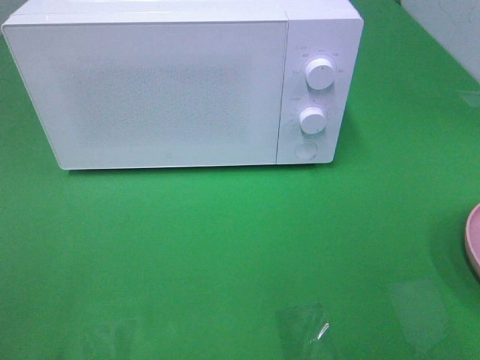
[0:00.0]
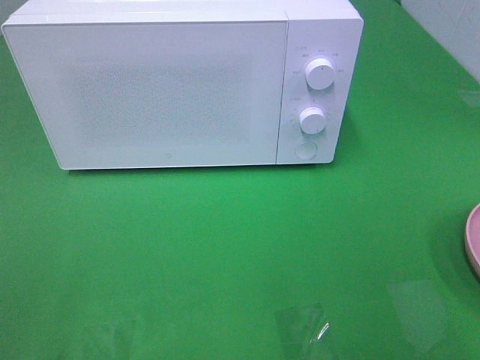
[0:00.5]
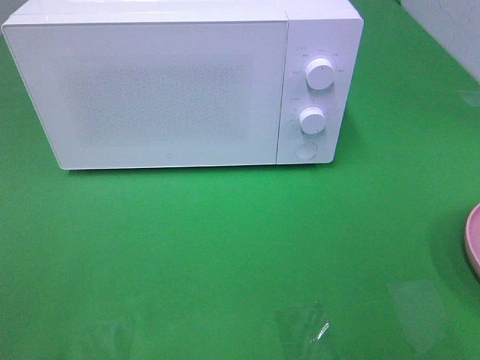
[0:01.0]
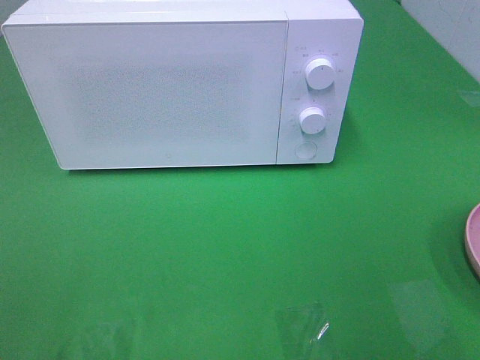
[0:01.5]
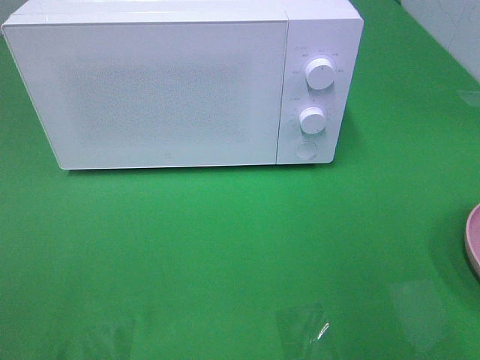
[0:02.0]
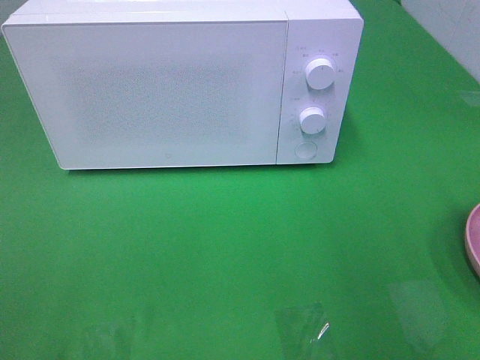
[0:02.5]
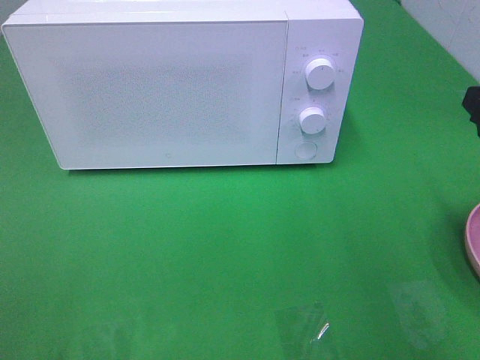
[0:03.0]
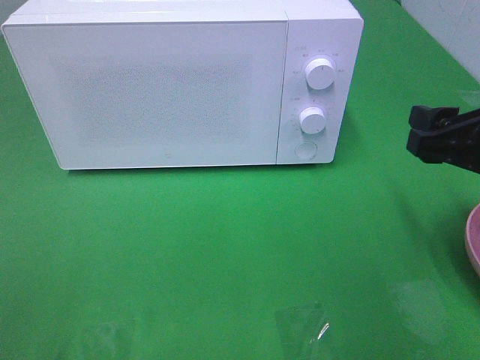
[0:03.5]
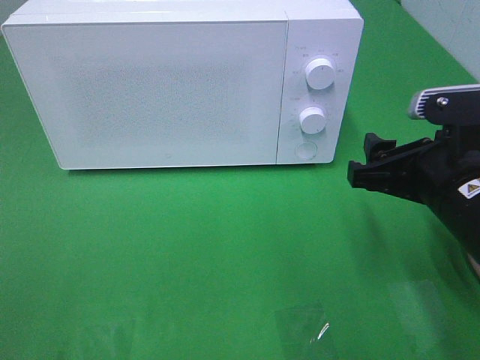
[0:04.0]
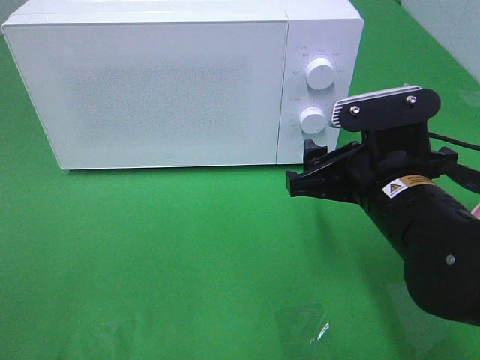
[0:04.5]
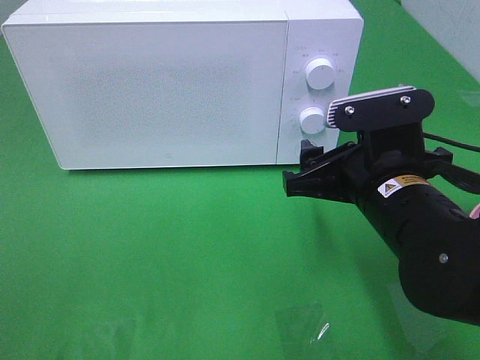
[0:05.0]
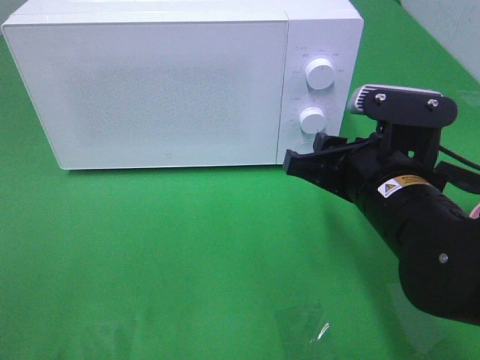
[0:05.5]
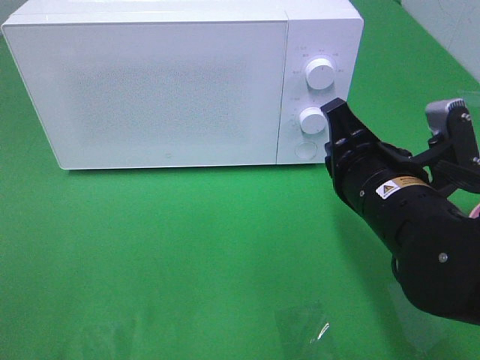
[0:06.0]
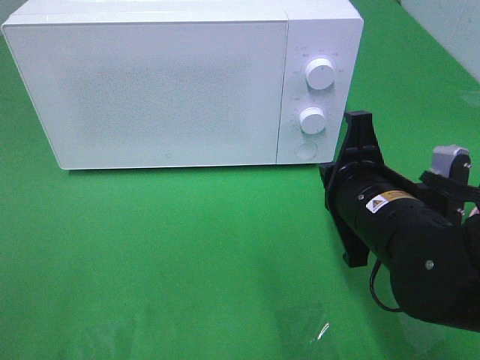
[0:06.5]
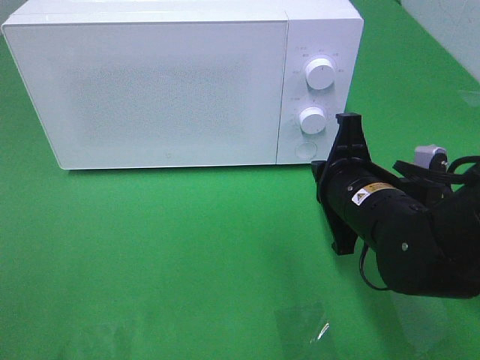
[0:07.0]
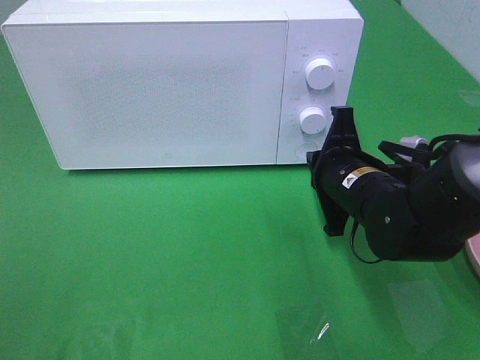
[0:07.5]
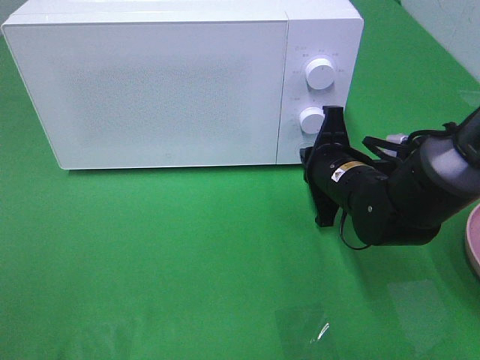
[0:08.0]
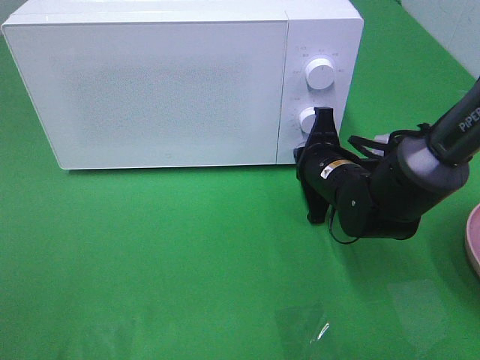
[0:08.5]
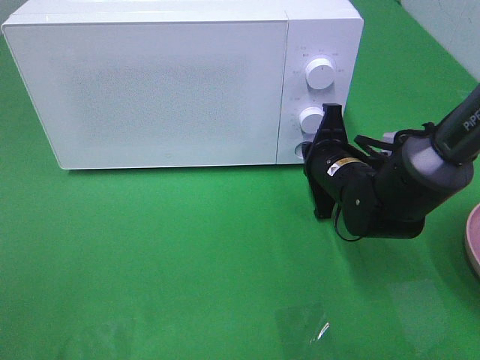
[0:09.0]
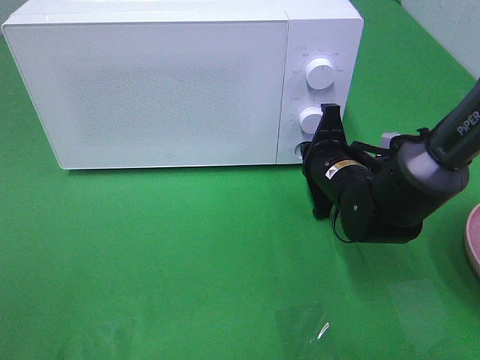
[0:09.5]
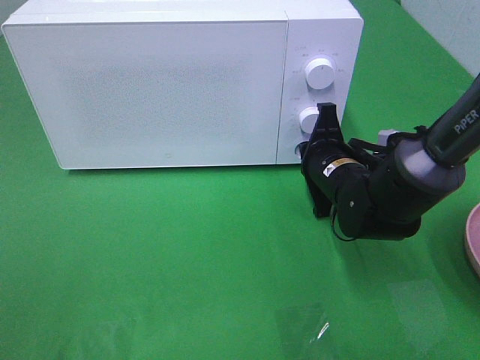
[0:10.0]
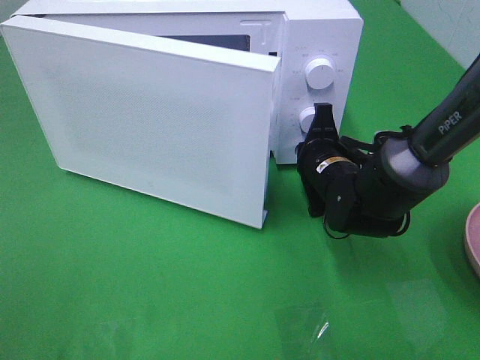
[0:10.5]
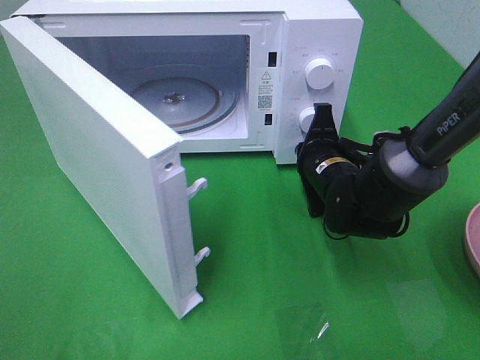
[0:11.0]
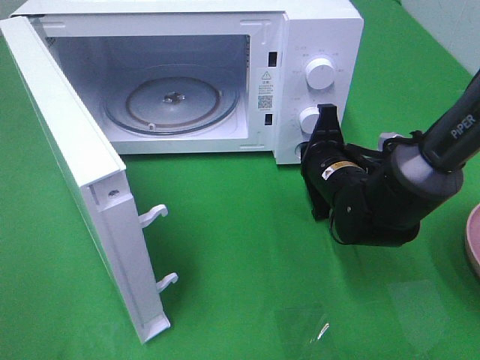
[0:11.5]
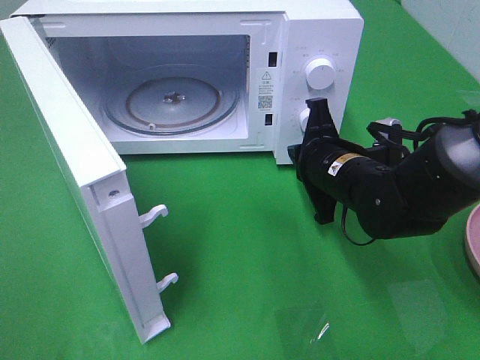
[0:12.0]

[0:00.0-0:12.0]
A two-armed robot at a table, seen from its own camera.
Task of the whole recording: Heat the burger.
Step, 0.0 to 11.5 s: Right hand: press the switch.
2.0 to 4.0 s: The right gripper goes roughly 20 cm downward, to the left and forward.
4.0 to 6.0 s: The right gripper goes approximately 5 cm to the left, and closes up.
6.0 to 8.0 s: The right gripper travels forward and downward by some 15 cm.
8.0 to 10.0 s: The grippers move only a little.

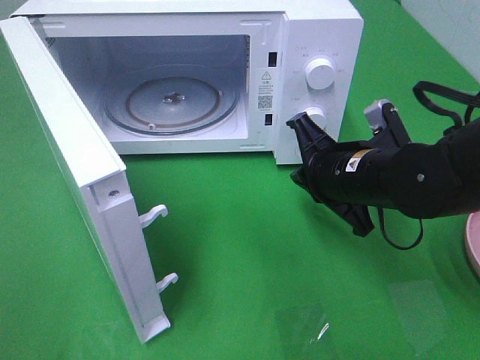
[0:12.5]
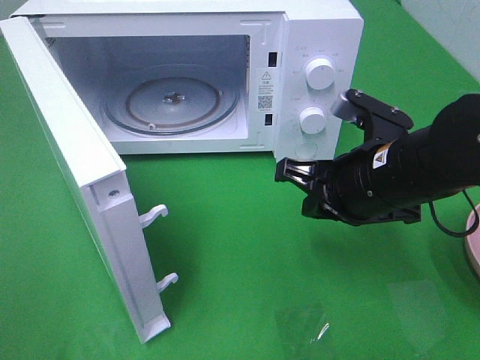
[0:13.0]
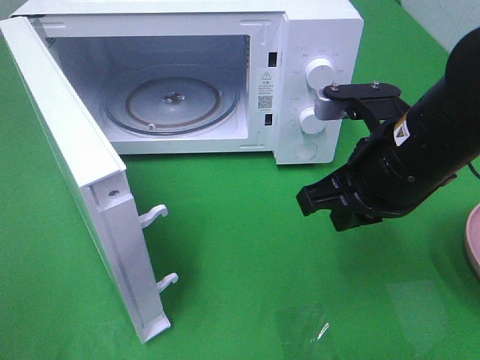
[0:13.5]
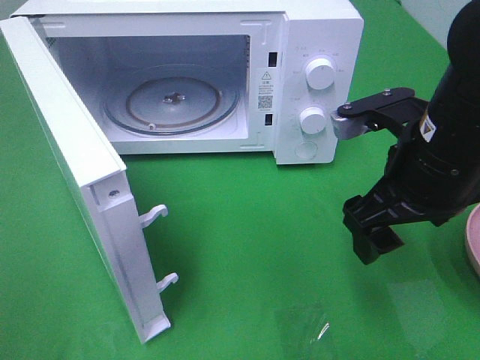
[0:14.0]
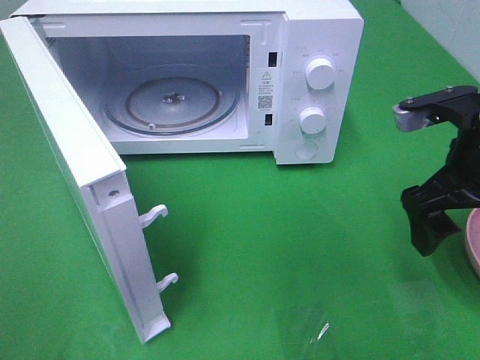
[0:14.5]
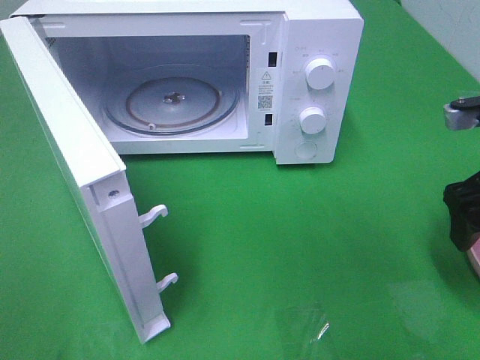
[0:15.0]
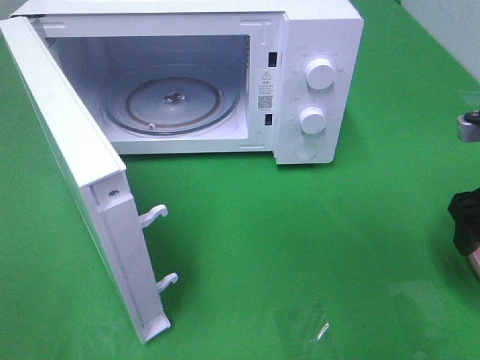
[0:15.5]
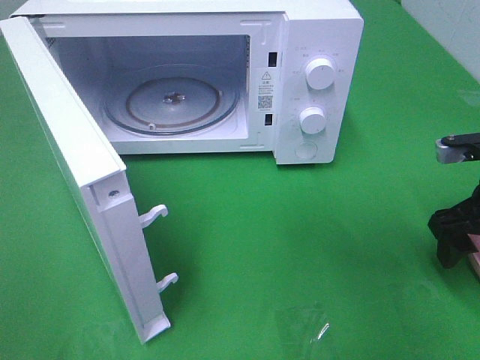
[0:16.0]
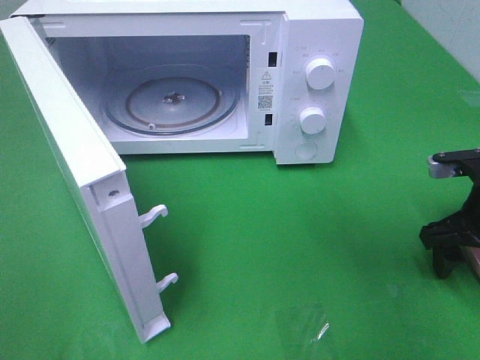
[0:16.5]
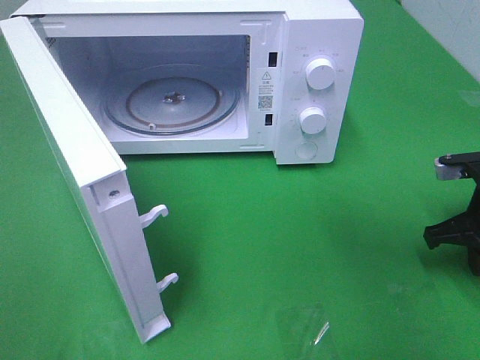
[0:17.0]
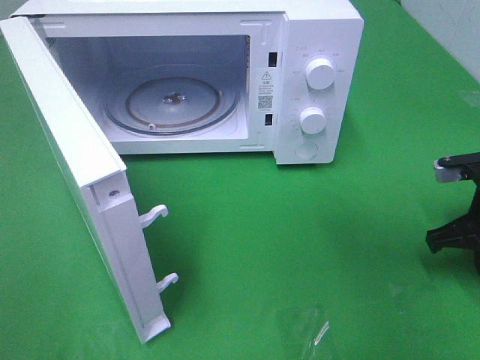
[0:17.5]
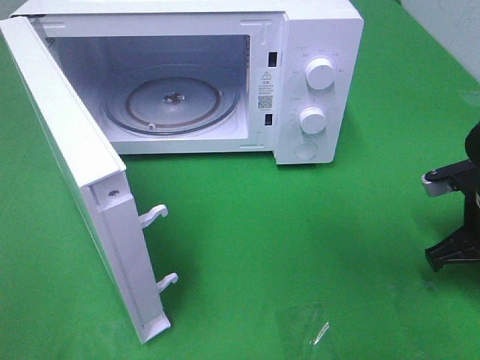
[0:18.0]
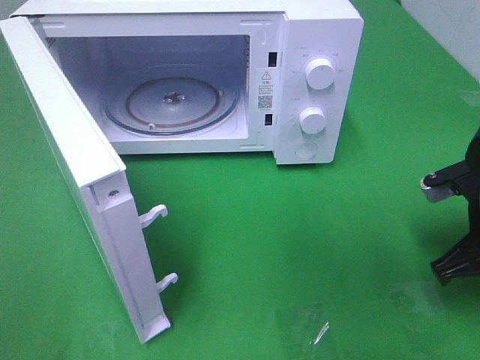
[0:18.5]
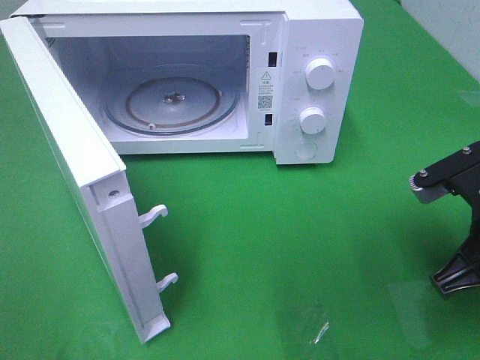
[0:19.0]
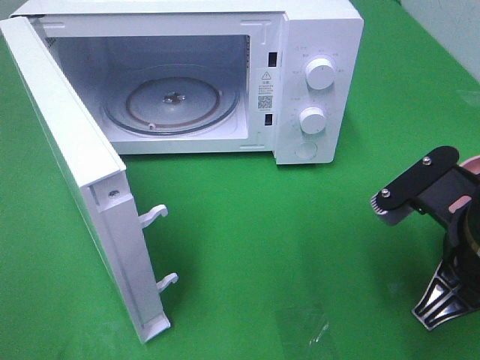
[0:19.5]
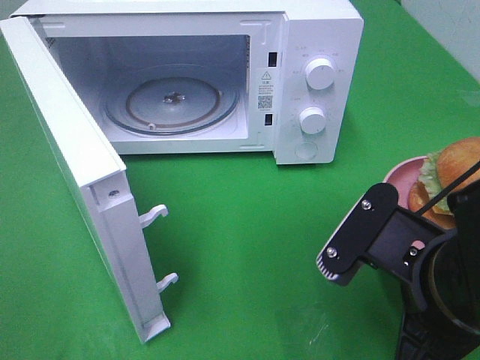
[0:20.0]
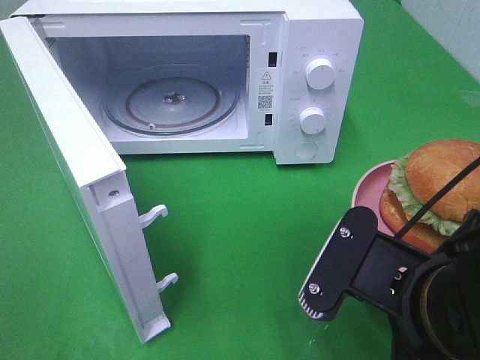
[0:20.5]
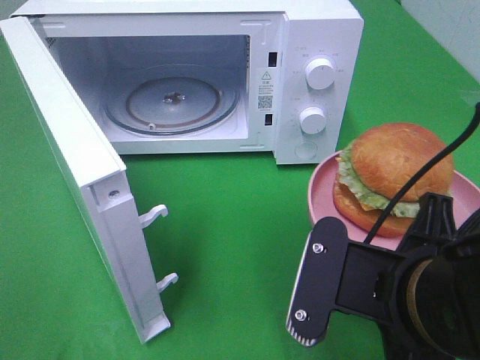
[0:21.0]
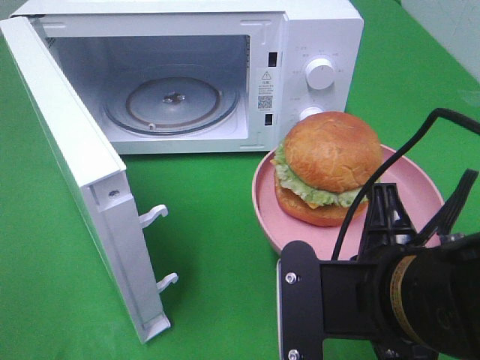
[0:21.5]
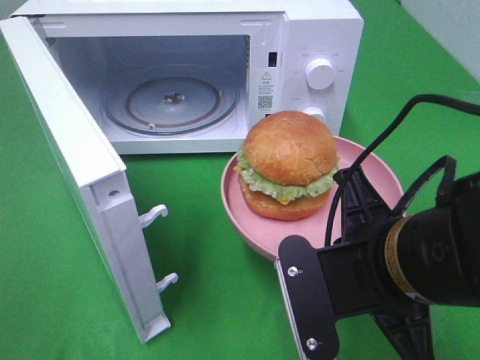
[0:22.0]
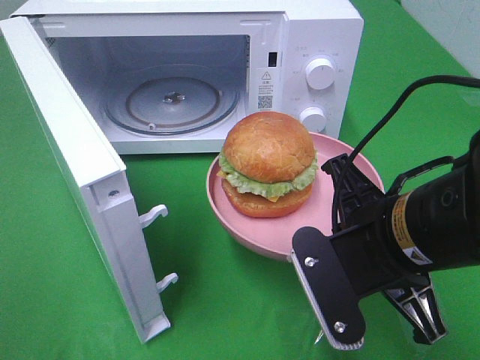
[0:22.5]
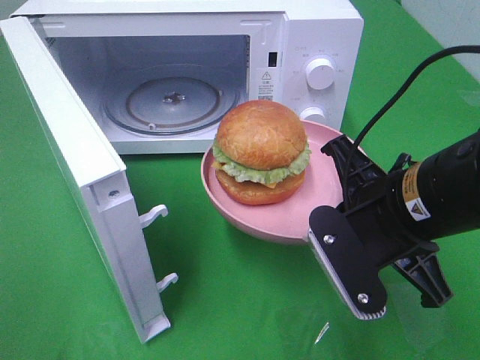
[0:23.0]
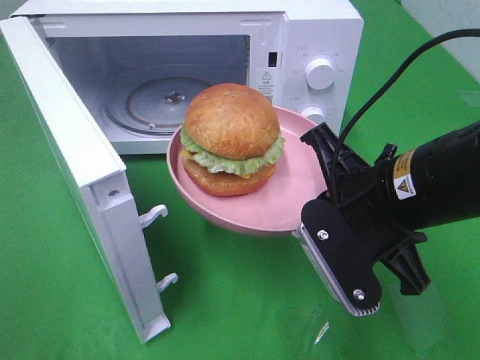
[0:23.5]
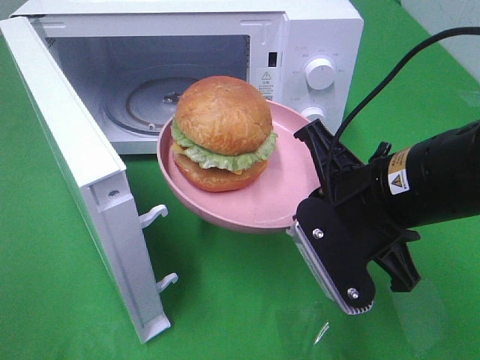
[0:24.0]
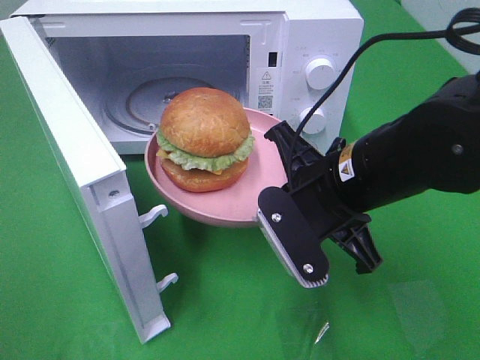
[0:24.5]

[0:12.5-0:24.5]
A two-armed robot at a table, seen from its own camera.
Task of the whole recording: Heat the burger.
Step, 12.5 to 17.0 s: Right hand: grab the plate with the hamburger.
12.5 to 14.5 s: The right gripper heads to the right and upward, covering about 10 cm, and opens up.
14.5 to 16.5 s: The right gripper heads downward and to the right, covering approximately 10 cm.
16.5 to 18.5 s: The right gripper shifts by roughly 5 cm, and closes its fingers.
18.5 to 20.5 s: The right gripper moves to the left and backward, about 20 cm.
20.5 to 22.5 s: The right gripper goes some 5 cm forward.
22.5 to 24.5 s: The right gripper goes roughly 5 cm forward.

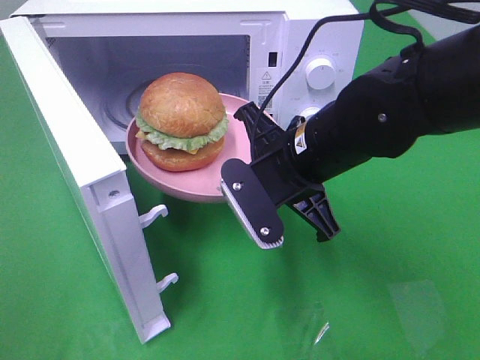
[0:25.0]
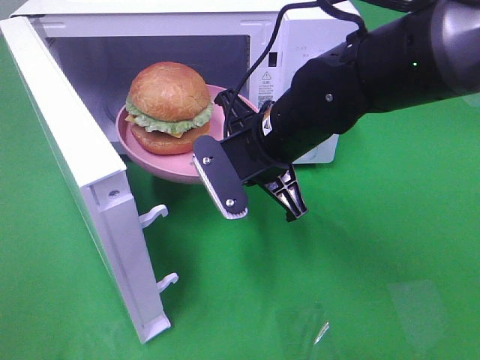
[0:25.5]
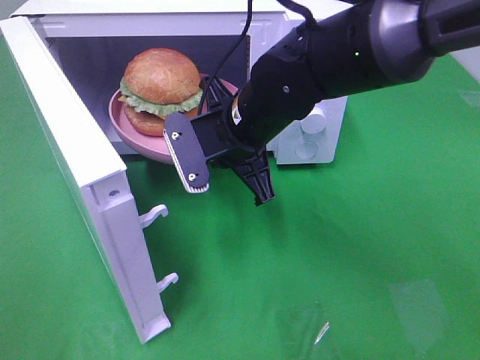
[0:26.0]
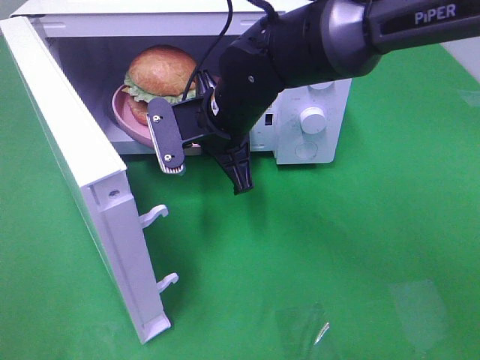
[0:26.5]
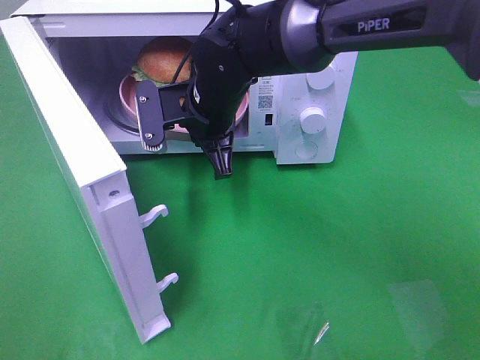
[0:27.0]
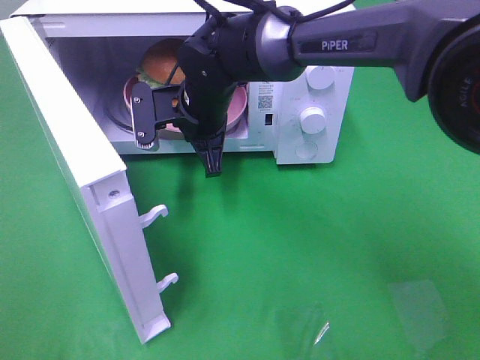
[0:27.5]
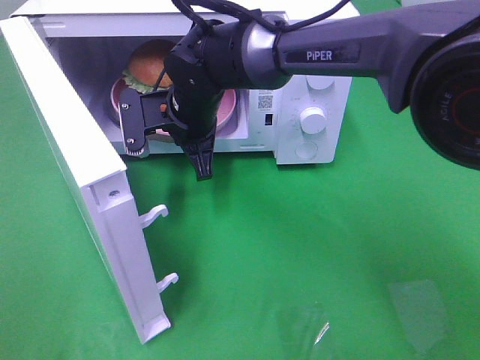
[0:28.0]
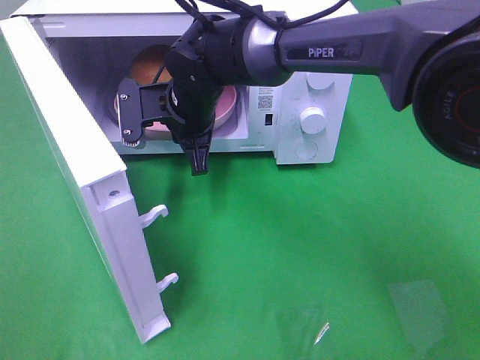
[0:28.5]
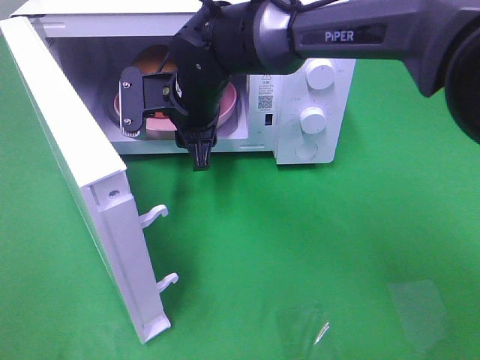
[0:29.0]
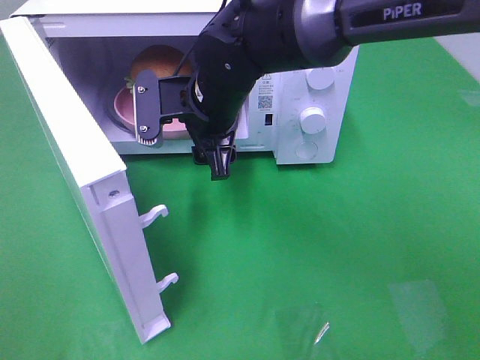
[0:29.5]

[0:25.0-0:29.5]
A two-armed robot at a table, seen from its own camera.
Task of the whole recording: Heat the burger.
Step, 25.0 to 28.5 s: Right hand: place the plate in the microwave.
25.0 to 27.0 s: The right gripper heads forward and to the left, covering approximately 15 cm.
27.0 to 29.5 s: The right gripper opens its fingers.
